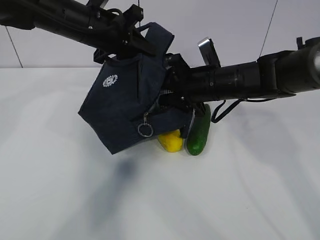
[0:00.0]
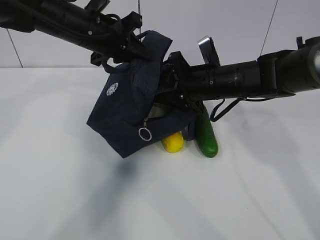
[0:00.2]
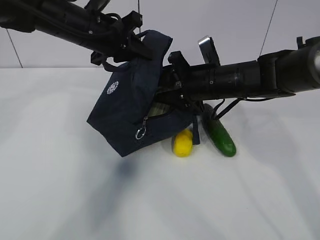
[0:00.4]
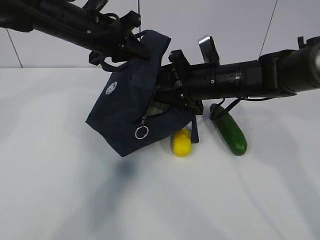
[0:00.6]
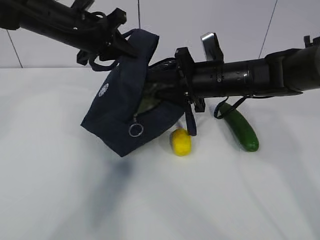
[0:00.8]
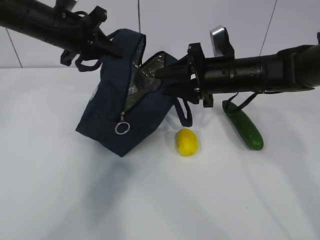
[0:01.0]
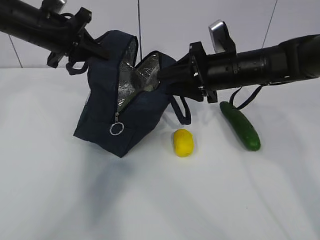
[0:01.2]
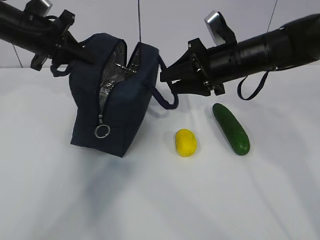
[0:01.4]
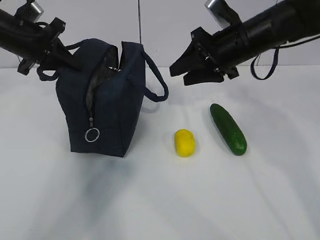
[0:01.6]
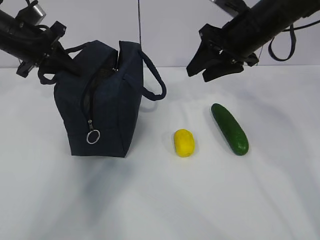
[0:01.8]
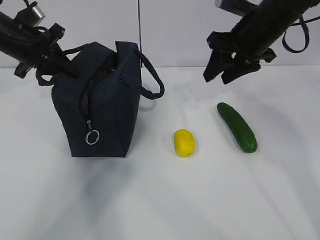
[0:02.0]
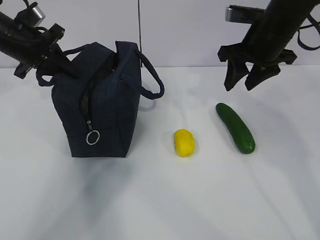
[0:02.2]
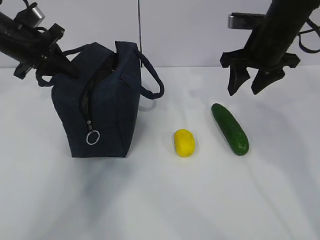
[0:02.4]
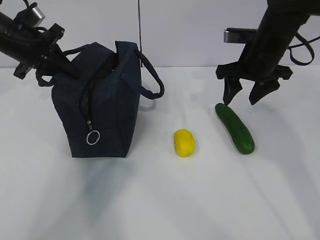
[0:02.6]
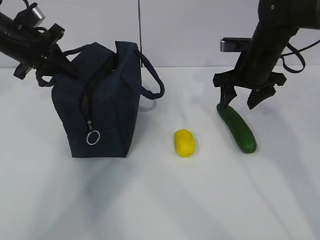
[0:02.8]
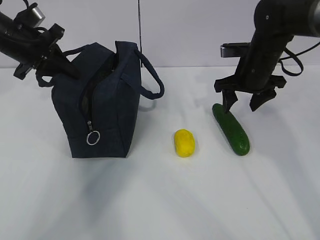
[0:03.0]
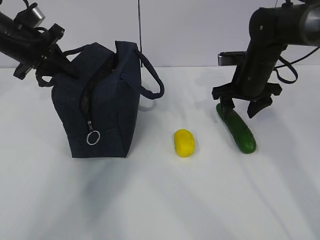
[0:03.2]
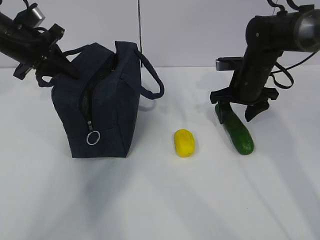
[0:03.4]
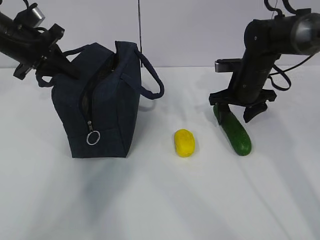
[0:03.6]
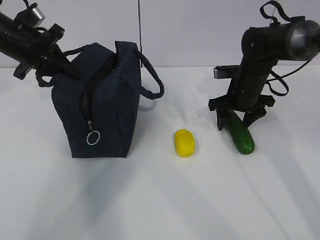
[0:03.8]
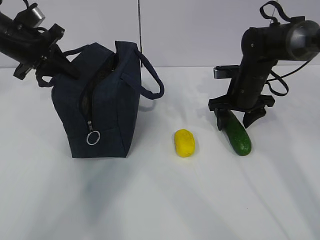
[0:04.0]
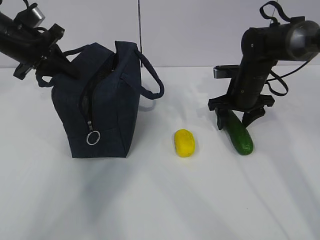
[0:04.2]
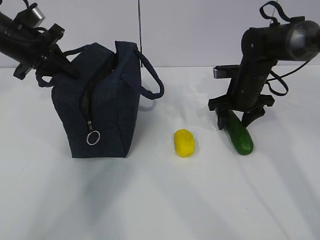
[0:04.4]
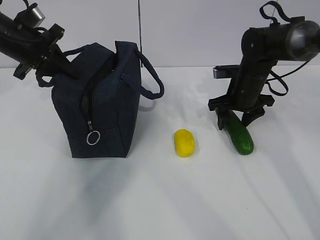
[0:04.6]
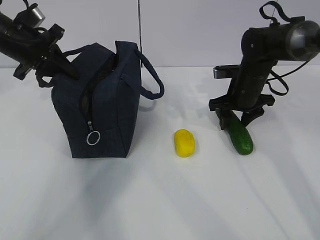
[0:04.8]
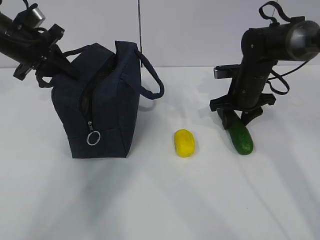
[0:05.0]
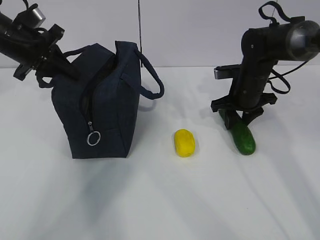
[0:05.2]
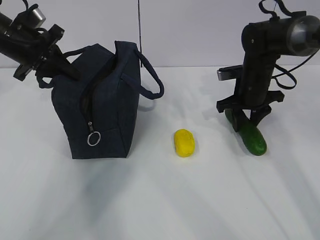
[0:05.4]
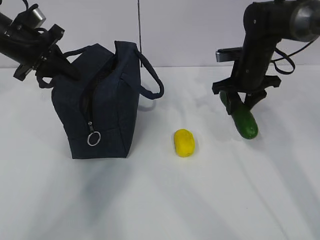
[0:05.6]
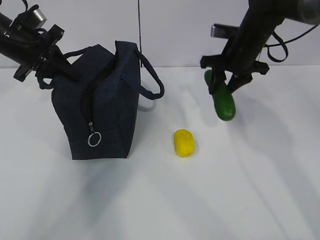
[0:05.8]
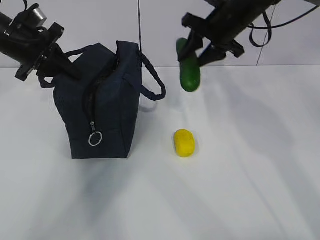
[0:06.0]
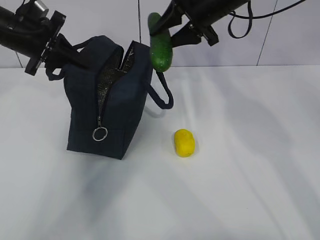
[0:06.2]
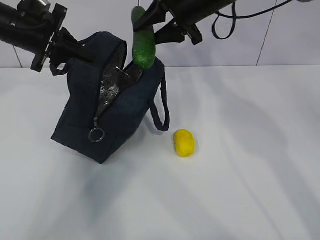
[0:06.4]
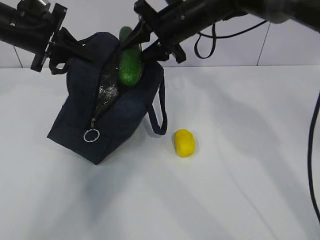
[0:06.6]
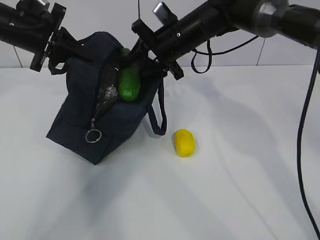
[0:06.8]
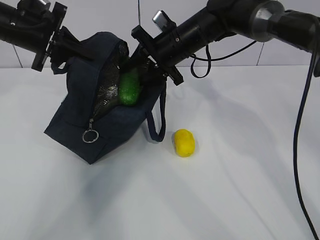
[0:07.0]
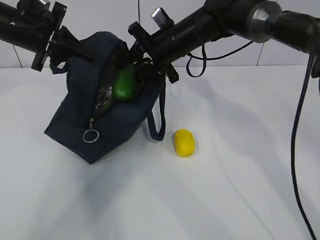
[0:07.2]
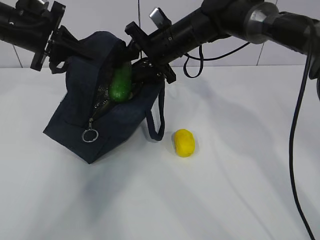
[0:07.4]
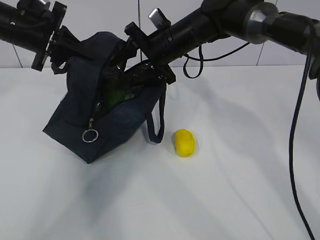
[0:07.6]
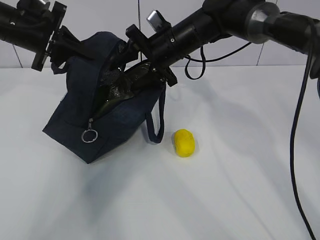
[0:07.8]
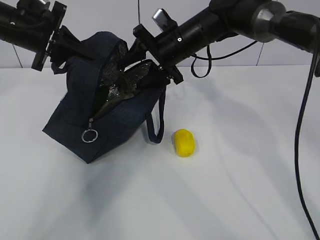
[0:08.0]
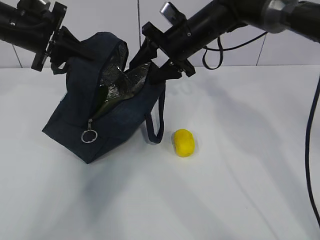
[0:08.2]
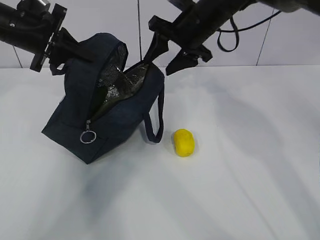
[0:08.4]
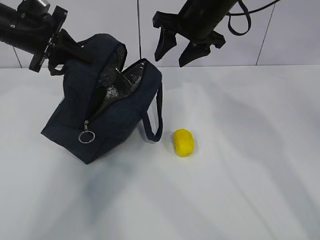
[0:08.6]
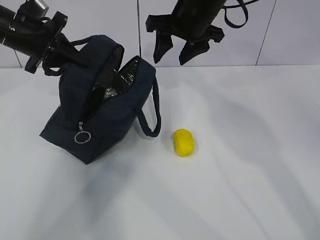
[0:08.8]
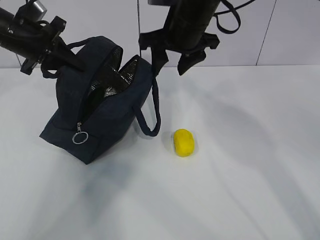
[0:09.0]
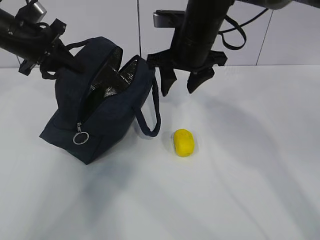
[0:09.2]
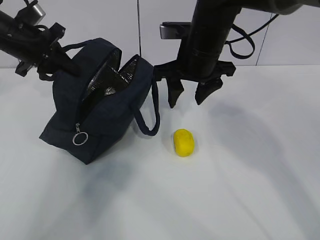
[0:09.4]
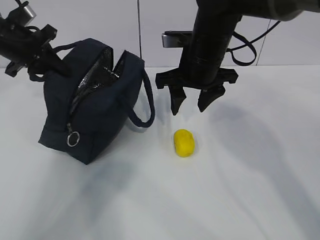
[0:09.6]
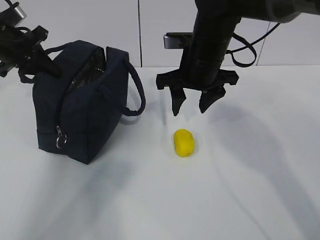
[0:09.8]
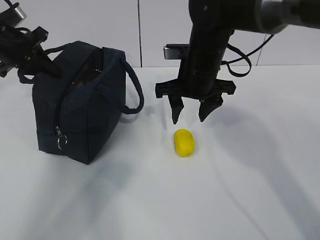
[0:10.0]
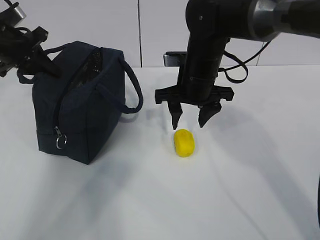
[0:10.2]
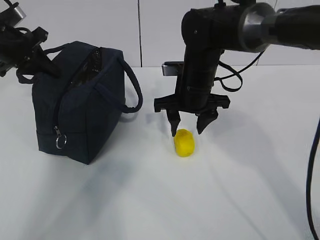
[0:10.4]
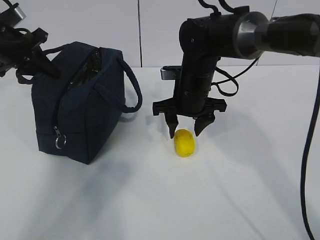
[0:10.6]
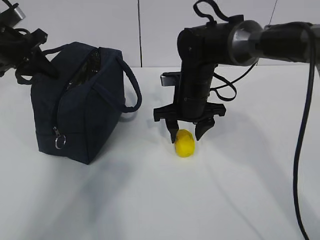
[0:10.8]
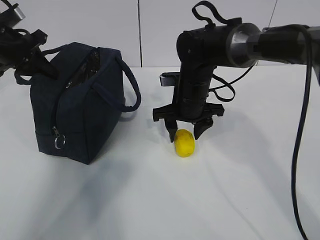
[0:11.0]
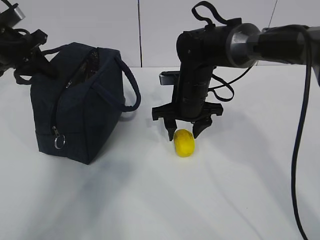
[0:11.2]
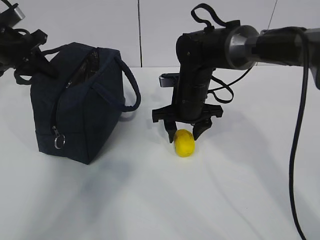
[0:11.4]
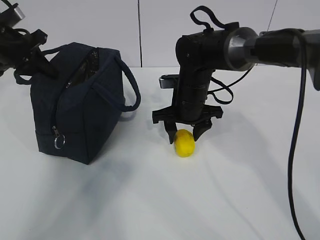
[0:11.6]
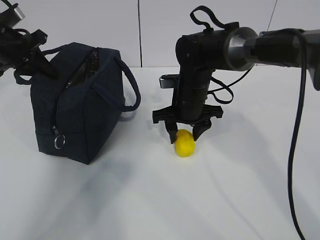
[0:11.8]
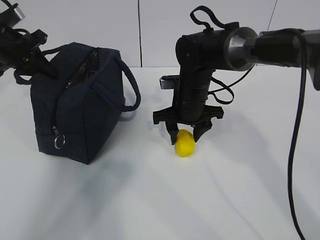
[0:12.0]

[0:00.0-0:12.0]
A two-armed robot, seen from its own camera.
Step, 0:00.0 to 0:01.6: Place it into the bag with your right hand.
Step, 0:01.8 to 0:05.6: Grab the lemon with your right hand.
0:00.0 to 0:01.6: The left gripper is displaced to the left by some 15 cm. The right gripper moves upward, about 5 cm.
0:01.6 to 0:03.0: The right gripper moves downward and to the right, roughly 10 cm.
0:03.0 to 0:04.4: The right gripper moves downward, some 5 cm.
0:04.4 to 0:06.0: The right gripper is displaced upward by about 15 cm.
0:06.0 to 0:07.6: The right gripper moves to the left, roughly 10 cm.
0:07.6 to 0:09.0: The right gripper goes some 5 cm upward.
0:09.0 to 0:10.4: The right gripper shifts approximately 10 cm downward.
0:10.4 to 0:12.0: The grippers stay close to where they were, moving slightly.

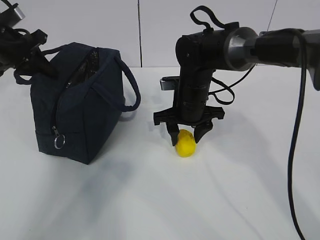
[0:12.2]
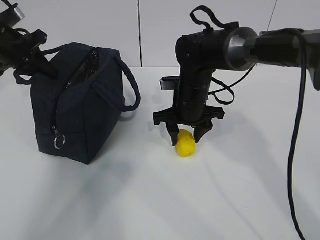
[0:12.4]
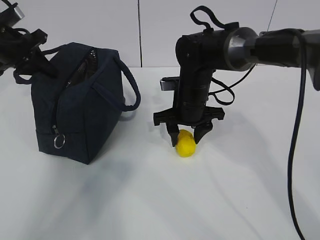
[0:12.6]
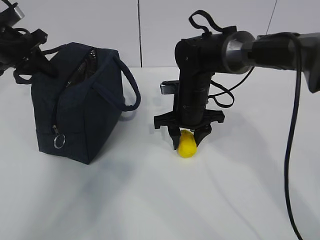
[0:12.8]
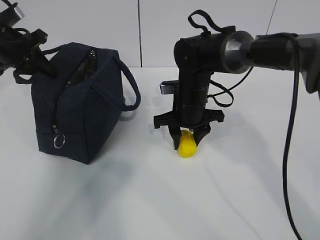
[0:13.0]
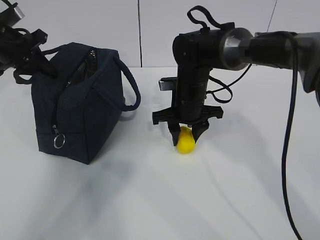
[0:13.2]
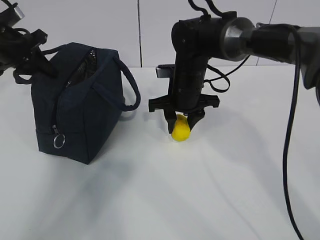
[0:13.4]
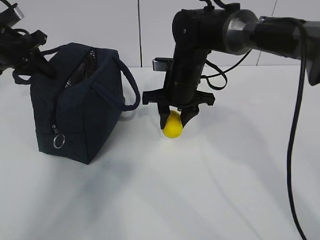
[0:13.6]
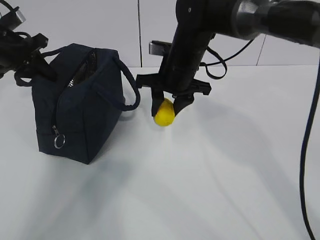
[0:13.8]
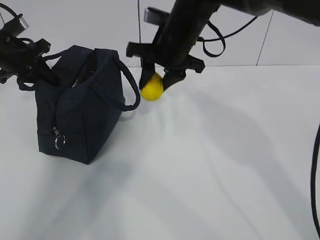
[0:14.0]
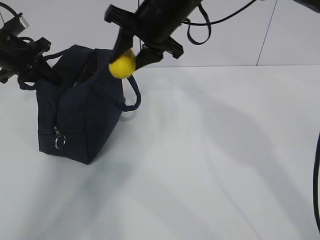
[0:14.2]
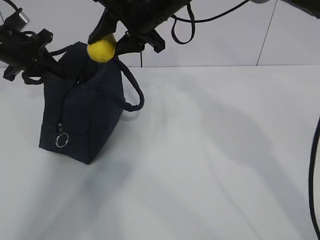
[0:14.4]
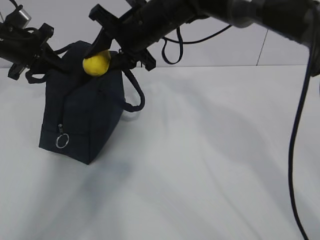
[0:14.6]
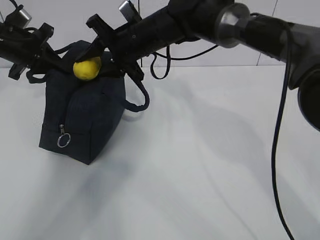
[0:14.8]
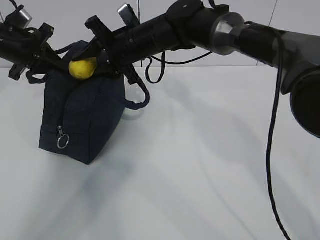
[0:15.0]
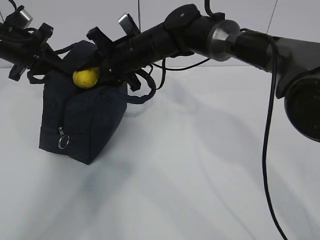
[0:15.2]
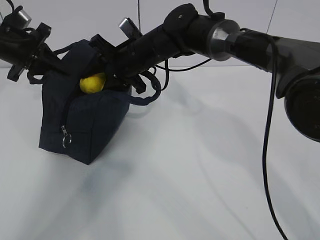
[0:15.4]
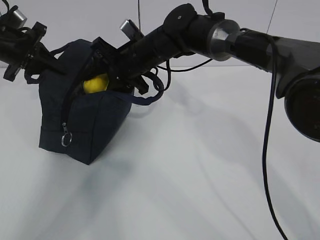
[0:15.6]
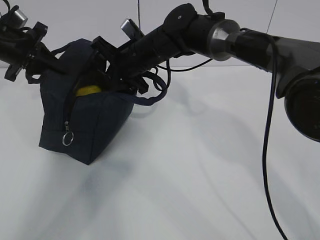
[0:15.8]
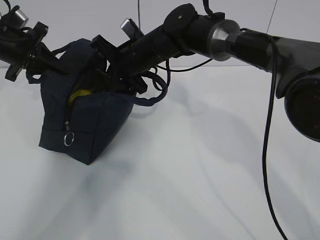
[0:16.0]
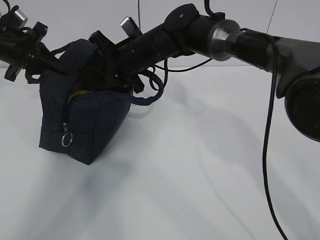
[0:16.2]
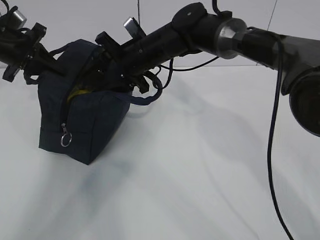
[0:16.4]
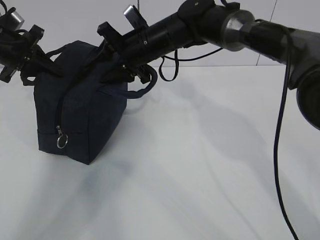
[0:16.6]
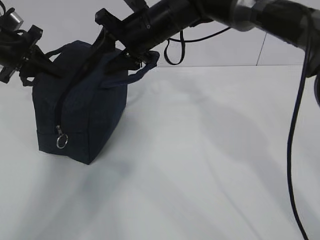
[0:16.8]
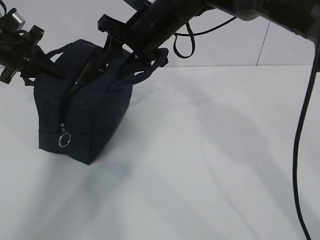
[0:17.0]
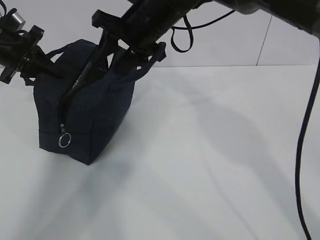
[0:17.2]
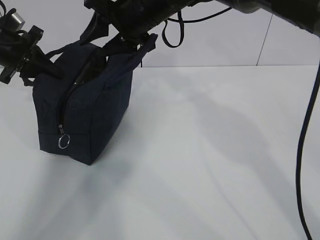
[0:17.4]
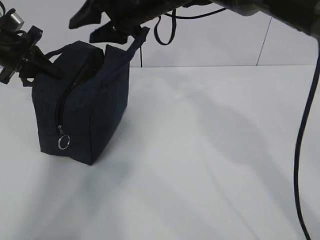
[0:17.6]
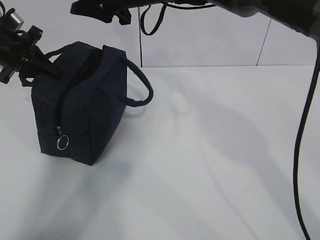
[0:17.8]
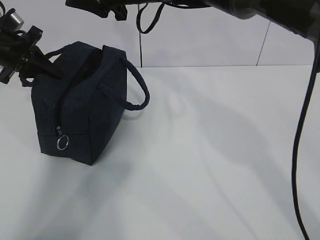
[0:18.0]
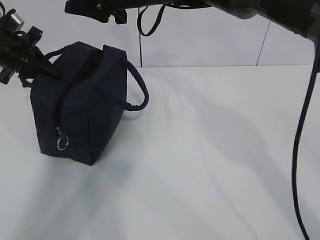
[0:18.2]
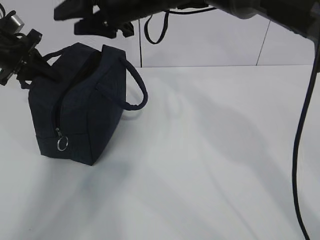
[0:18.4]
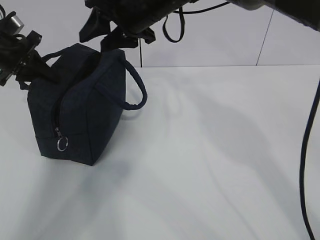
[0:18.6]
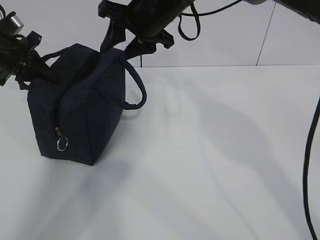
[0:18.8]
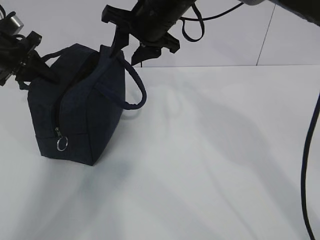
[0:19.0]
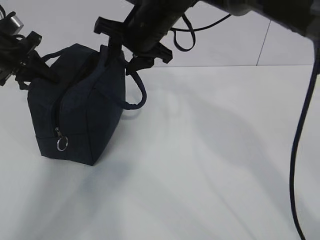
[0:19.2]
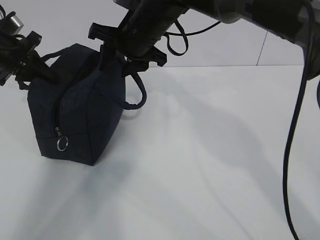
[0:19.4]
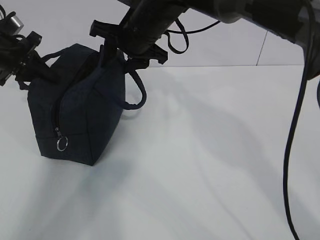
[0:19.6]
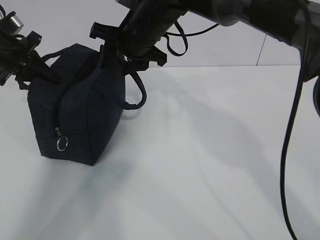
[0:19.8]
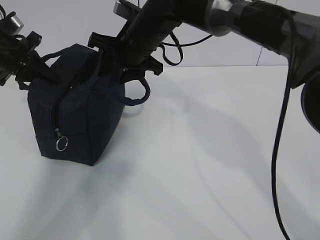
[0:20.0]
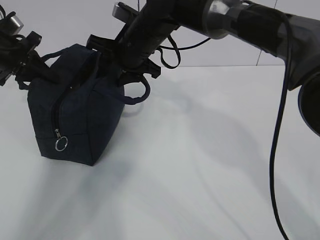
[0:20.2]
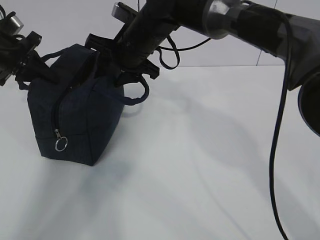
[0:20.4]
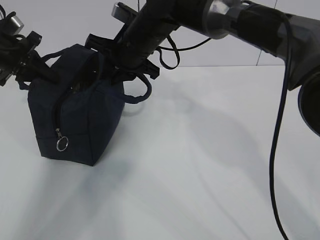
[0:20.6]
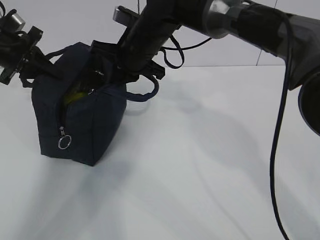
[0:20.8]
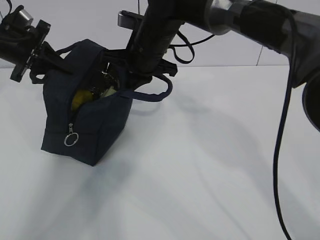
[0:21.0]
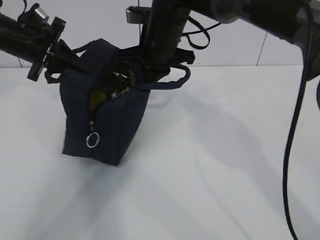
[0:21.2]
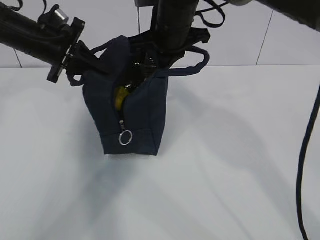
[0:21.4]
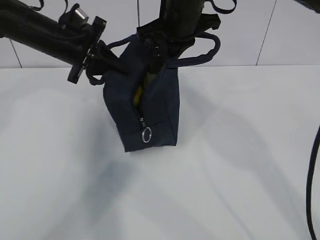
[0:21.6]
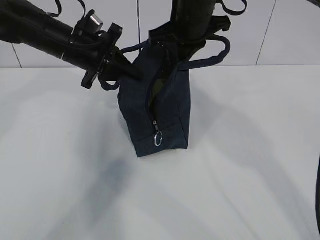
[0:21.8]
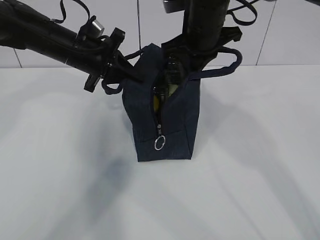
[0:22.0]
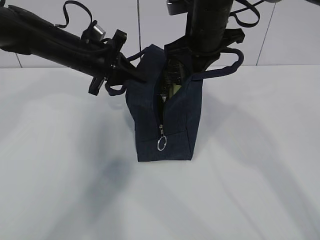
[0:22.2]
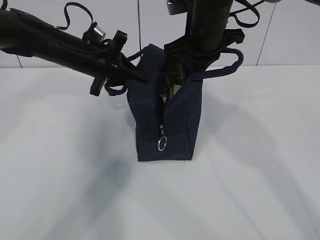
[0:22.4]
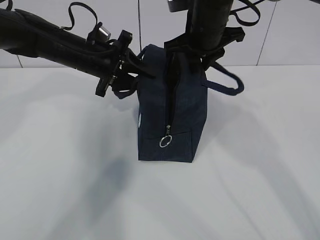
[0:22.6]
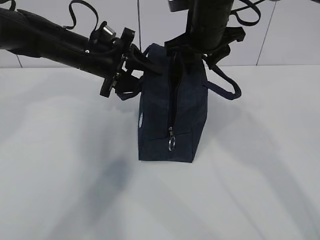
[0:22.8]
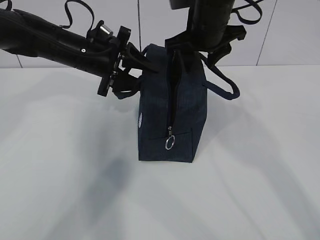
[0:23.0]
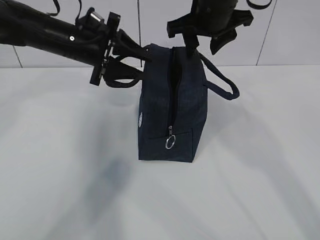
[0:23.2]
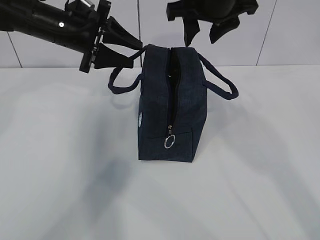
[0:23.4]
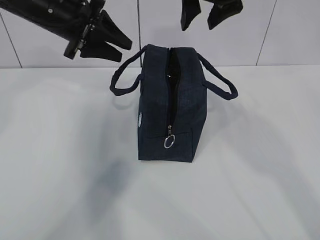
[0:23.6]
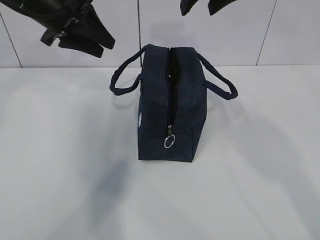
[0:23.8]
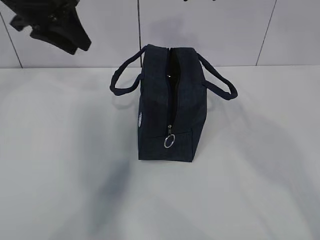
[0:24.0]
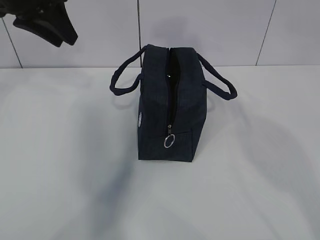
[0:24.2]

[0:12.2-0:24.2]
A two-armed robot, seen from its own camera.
Step, 0:12.4 to 0:14.4: Move the lunch bag to the right.
0:12.2 to 0:13.8: The right gripper moves upward, roughly 5 cm.
0:13.8 to 0:15.2: The right gripper moves to the left, approximately 5 cm, and reaches roughly 10 cm upward, then returns.
0:15.2 to 0:16.6: The grippers make only small movements.
0:16.6 to 0:18.2: The right gripper heads upward, covering some 10 cm.
0:18.2 to 0:19.8: The right gripper is displaced downward by about 5 cm.
0:19.8 to 0:21.2: The right gripper closes, while the left gripper ends up about 5 cm from where it was.
0:21.2 to 0:22.6: The left gripper goes about 10 cm to the right, and opens, while the right gripper is displaced to the right by some 5 cm.
0:22.6 to 0:24.2: The left gripper is displaced upward and to the left by some 15 cm, while the right gripper shifts approximately 20 cm upward and backward, and opens up.
